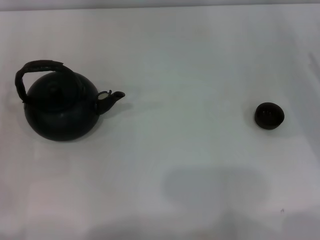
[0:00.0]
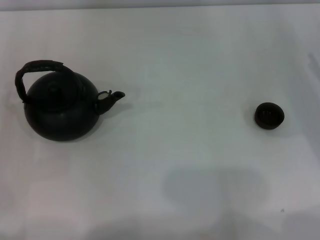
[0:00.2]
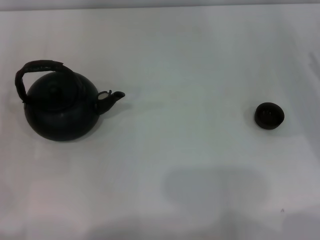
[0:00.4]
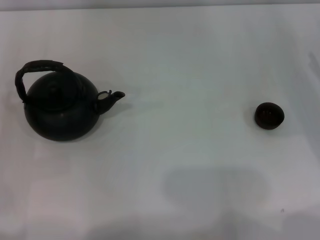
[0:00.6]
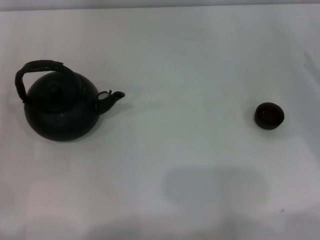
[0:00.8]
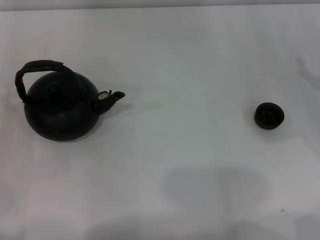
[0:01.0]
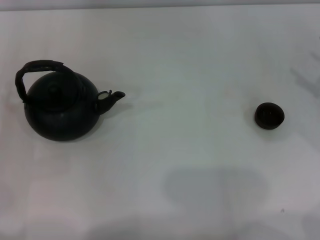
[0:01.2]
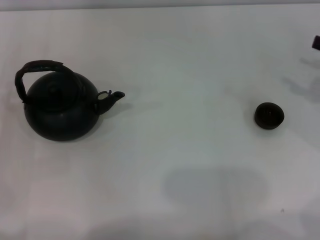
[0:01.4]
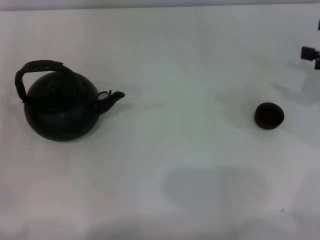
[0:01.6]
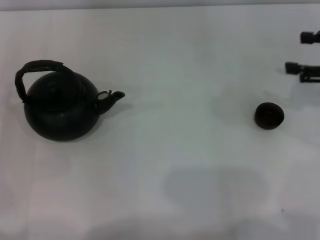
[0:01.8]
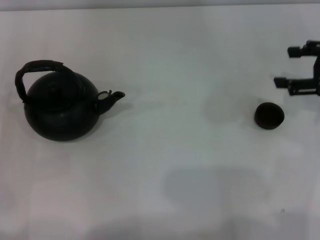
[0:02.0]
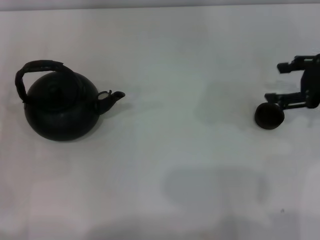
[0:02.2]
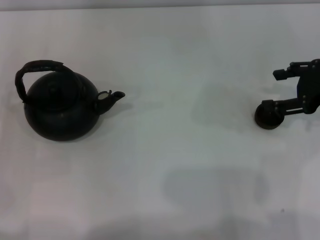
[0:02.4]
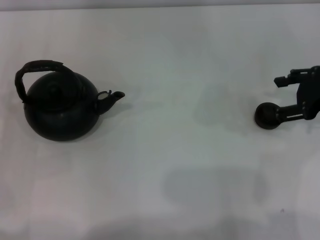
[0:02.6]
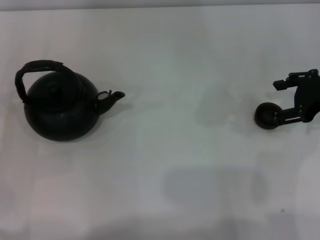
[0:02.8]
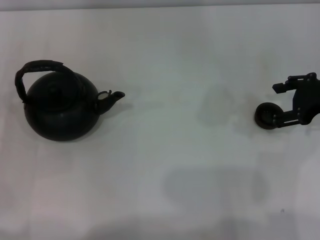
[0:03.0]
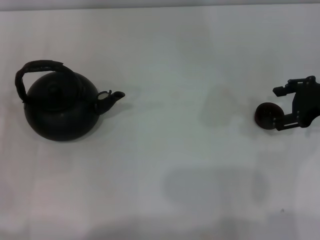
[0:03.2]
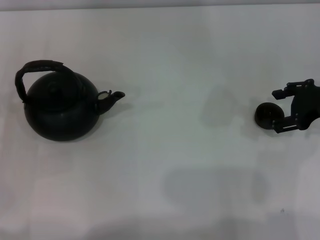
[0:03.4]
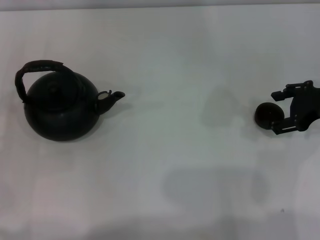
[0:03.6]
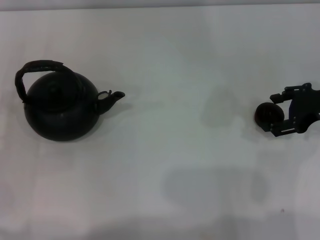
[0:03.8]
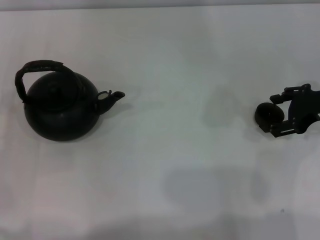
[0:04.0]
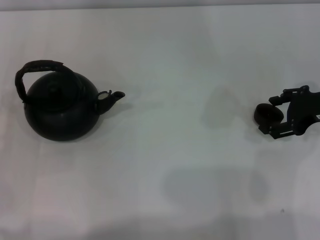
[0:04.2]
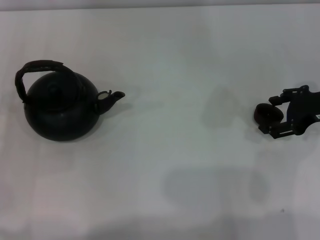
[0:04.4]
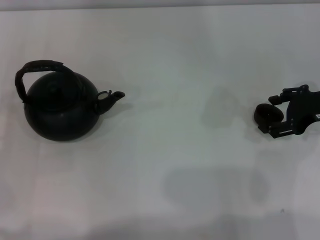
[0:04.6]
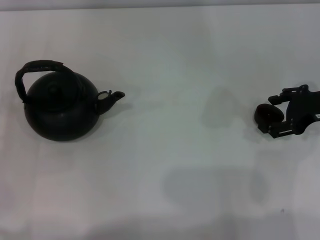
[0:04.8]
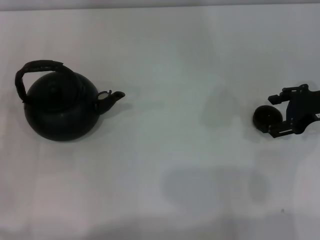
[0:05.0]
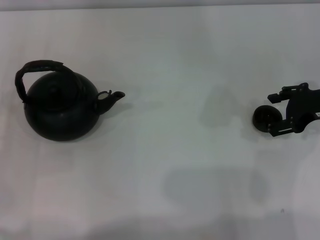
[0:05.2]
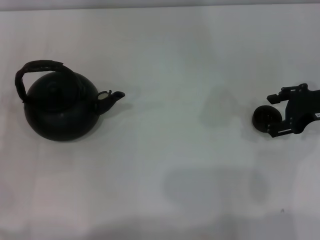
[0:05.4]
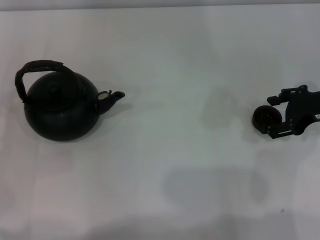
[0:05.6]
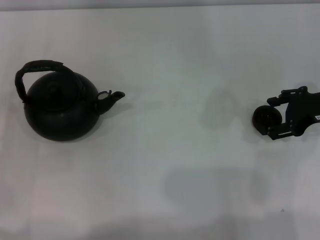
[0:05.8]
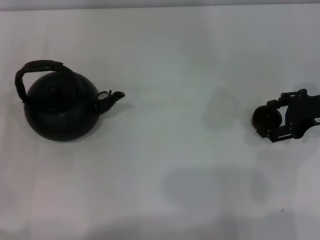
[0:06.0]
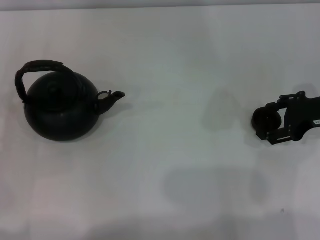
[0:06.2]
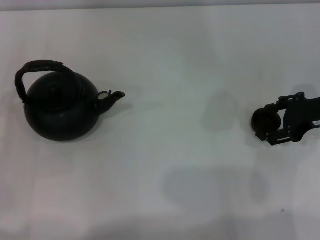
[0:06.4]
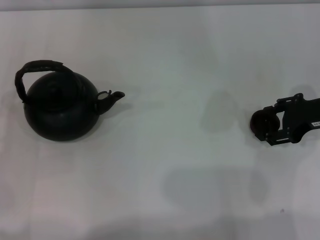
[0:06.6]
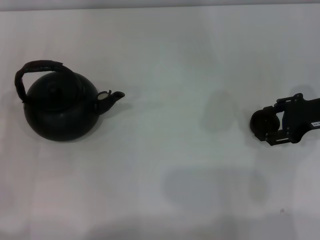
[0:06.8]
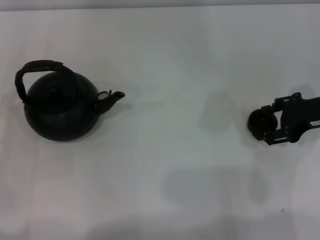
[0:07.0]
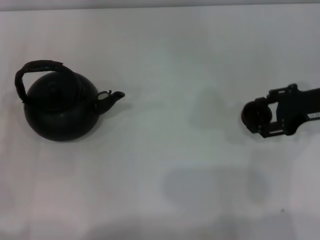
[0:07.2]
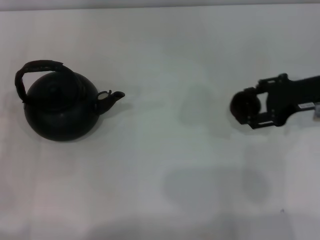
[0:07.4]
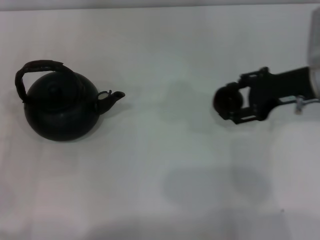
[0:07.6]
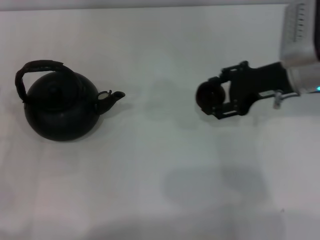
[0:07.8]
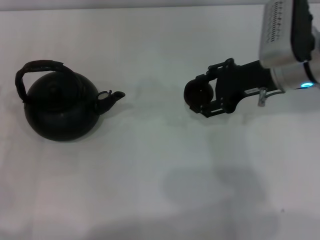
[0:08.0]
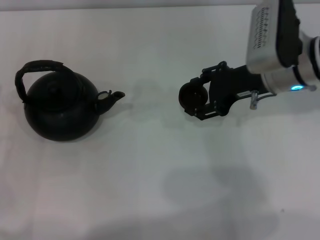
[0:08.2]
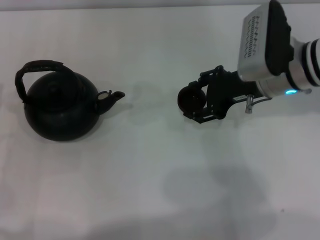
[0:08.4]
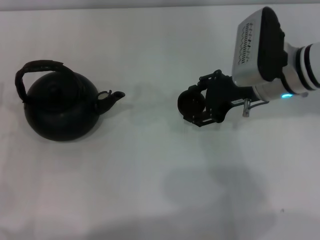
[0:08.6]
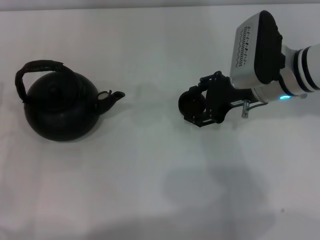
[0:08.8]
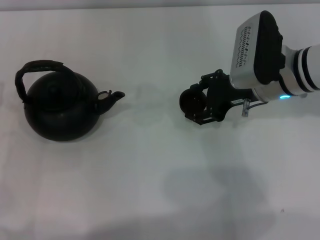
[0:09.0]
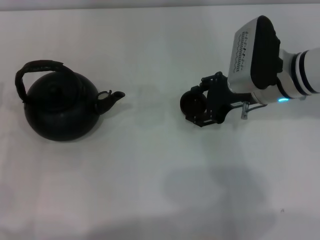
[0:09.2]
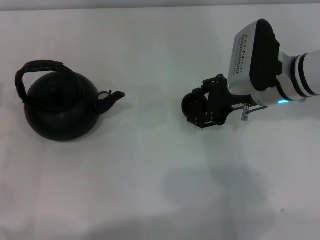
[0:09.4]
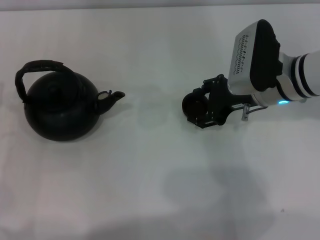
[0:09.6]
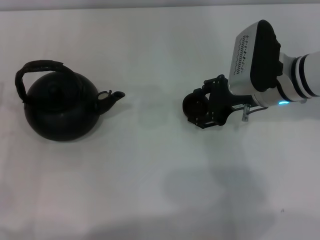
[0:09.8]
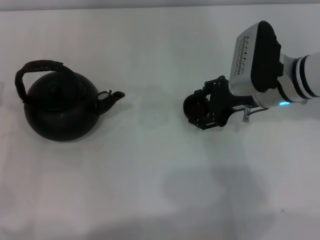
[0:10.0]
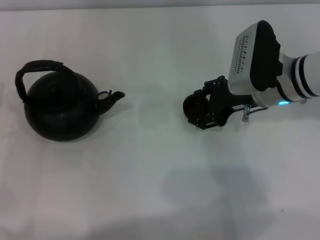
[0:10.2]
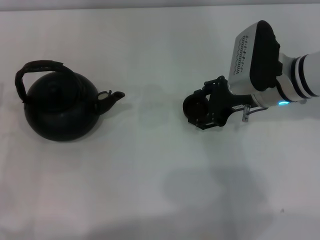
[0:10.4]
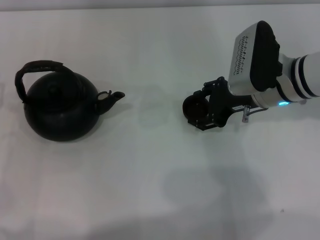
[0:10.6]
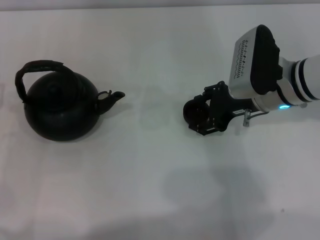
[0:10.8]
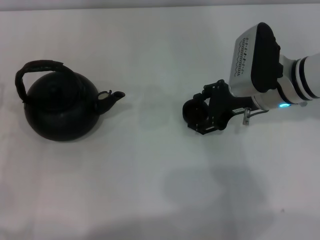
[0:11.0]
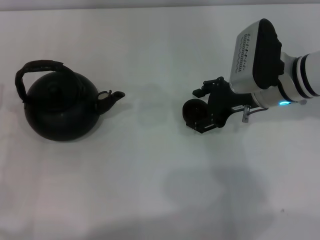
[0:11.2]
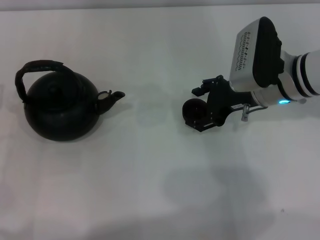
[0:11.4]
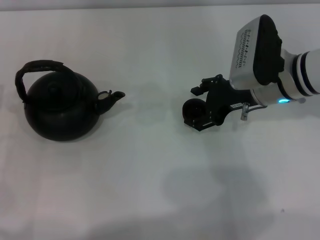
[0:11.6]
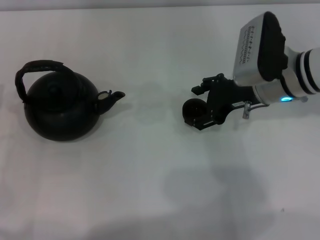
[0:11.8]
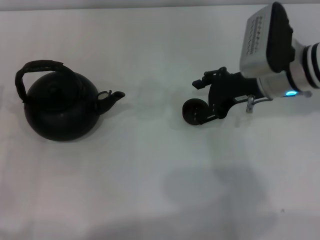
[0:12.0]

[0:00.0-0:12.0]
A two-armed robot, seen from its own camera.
Task of the whole recording: Grasp the handle of the teapot with one hand and pour tea into the teacup.
Step, 0:00.0 to 0:07.2: Pick up the teacup with the right gripper.
0:01.6 to 0:03.0: The right gripper moves to the left, some 5 cm.
0:03.0 to 0:04.4: The grippers make only small movements.
0:04.4 to 0:06.0: Neither gripper changes place.
0:06.0 to 0:07.6: The right gripper moves to the left, about 5 cm, and closes its fingers.
0:07.6 to 0:09.0: The right gripper is displaced to the left by some 5 cm.
0:09.0 to 0:10.4: Both grippers stay about where they are.
0:10.4 to 0:12.0: The right gripper opens up.

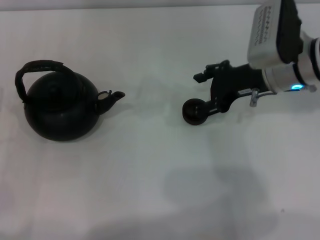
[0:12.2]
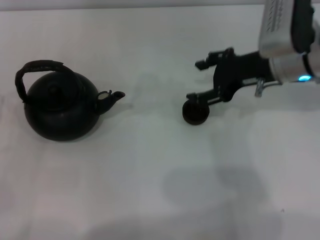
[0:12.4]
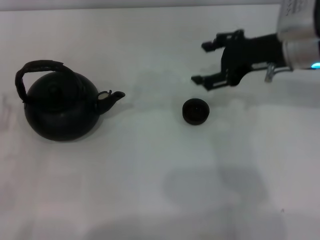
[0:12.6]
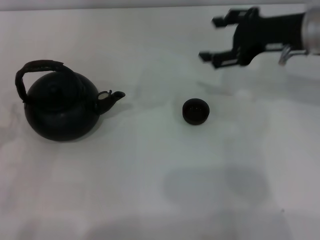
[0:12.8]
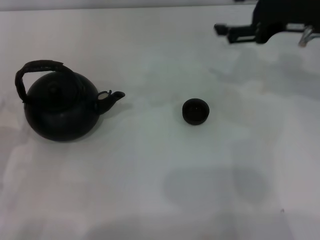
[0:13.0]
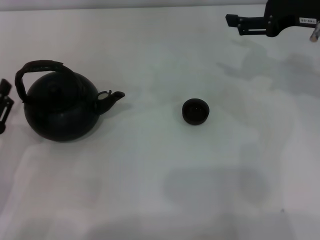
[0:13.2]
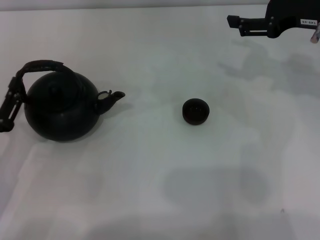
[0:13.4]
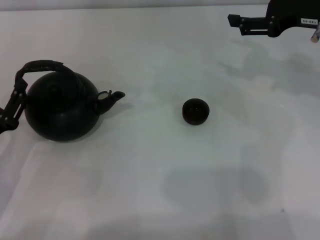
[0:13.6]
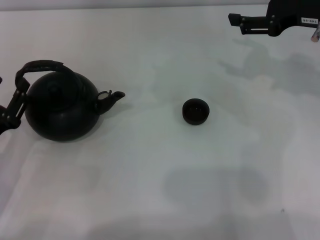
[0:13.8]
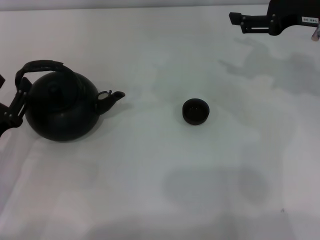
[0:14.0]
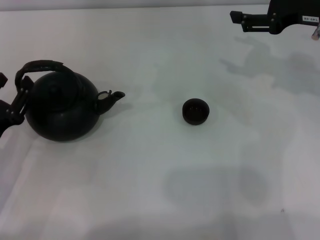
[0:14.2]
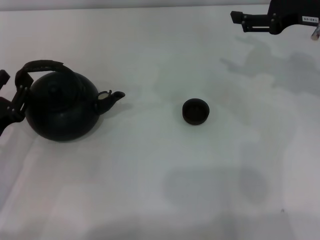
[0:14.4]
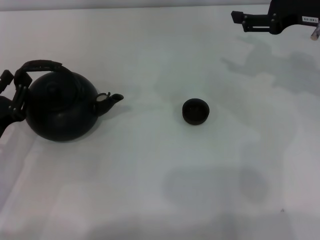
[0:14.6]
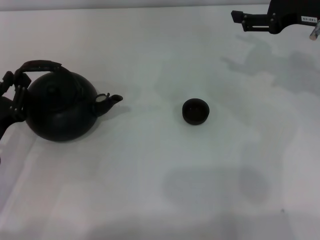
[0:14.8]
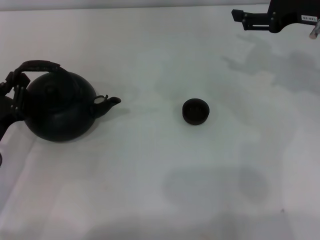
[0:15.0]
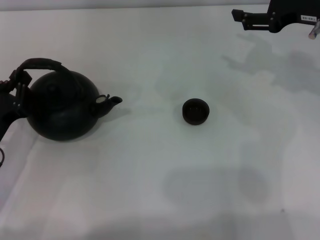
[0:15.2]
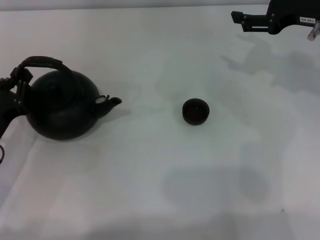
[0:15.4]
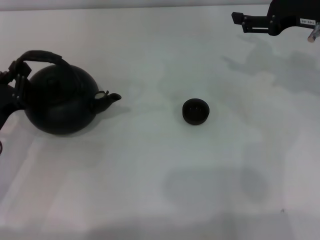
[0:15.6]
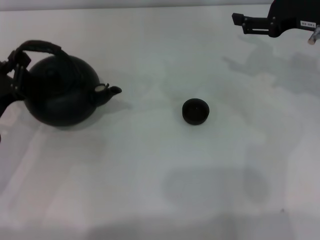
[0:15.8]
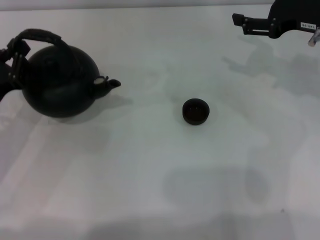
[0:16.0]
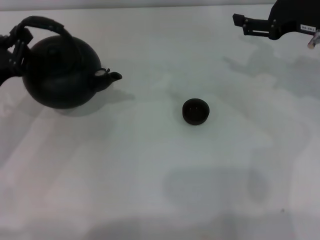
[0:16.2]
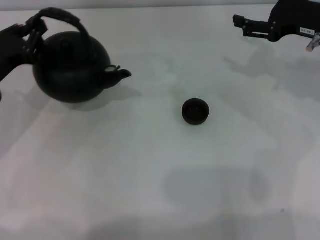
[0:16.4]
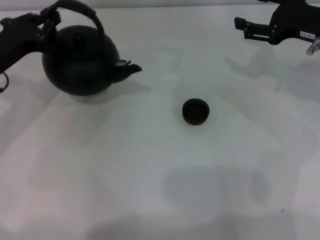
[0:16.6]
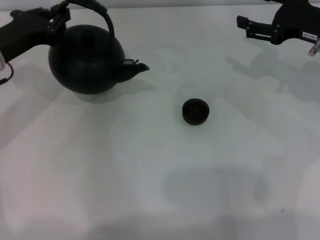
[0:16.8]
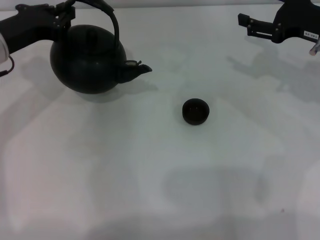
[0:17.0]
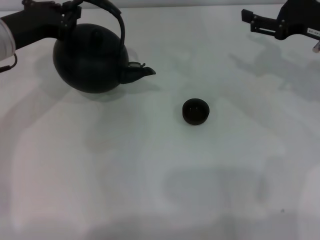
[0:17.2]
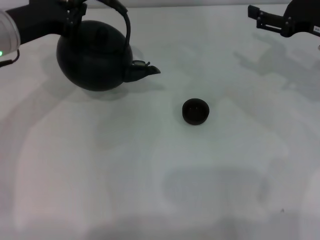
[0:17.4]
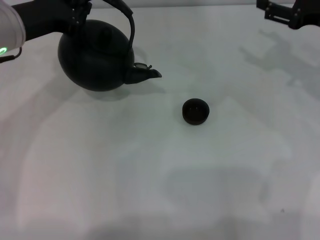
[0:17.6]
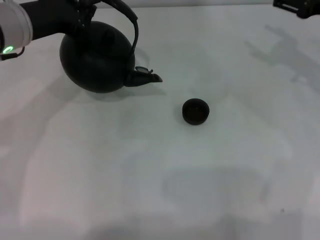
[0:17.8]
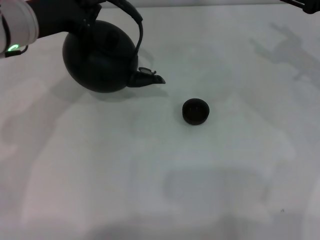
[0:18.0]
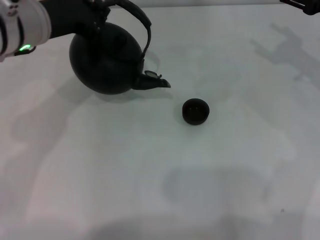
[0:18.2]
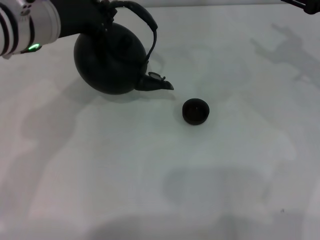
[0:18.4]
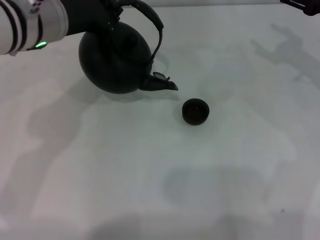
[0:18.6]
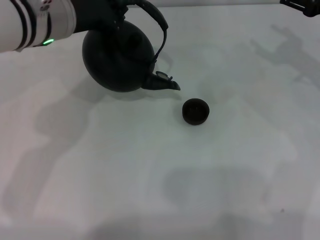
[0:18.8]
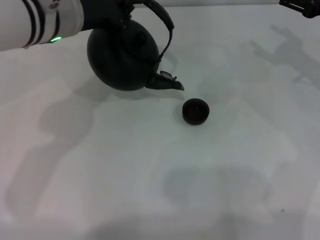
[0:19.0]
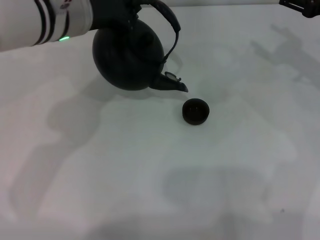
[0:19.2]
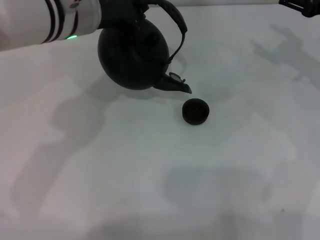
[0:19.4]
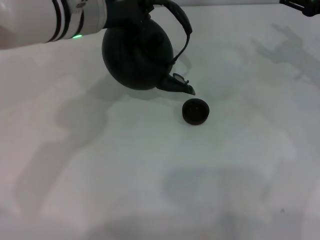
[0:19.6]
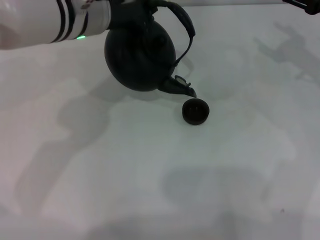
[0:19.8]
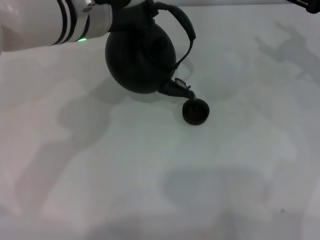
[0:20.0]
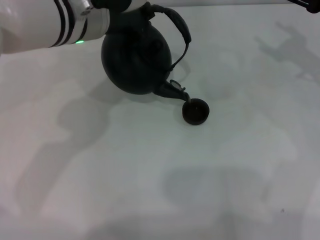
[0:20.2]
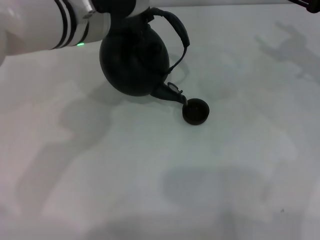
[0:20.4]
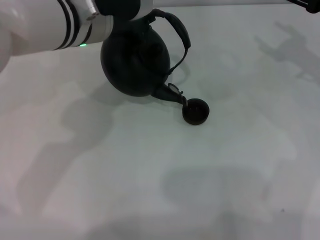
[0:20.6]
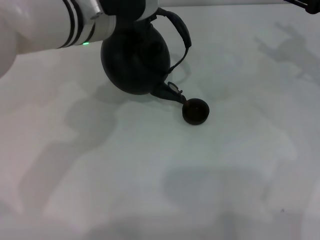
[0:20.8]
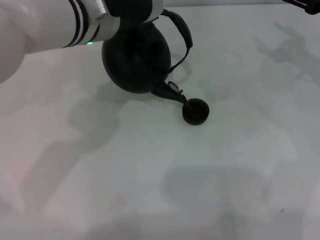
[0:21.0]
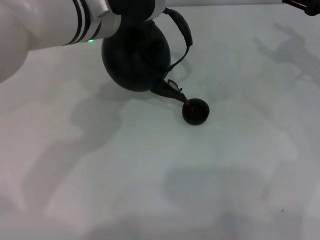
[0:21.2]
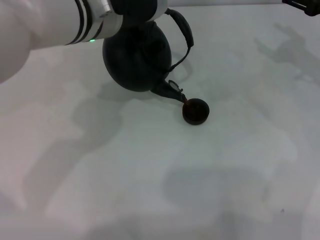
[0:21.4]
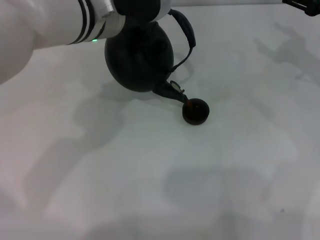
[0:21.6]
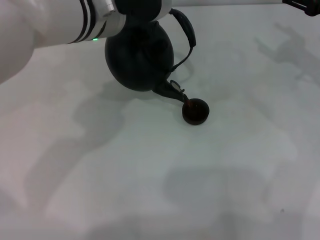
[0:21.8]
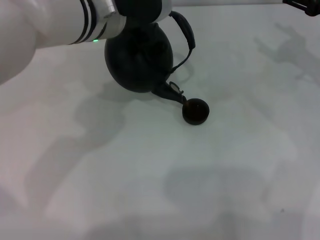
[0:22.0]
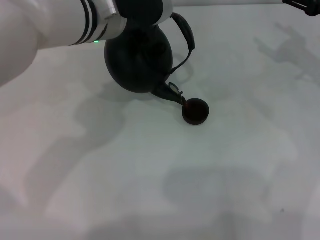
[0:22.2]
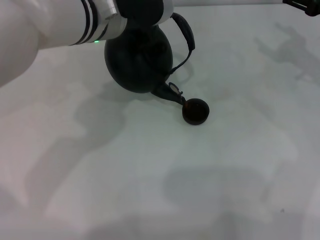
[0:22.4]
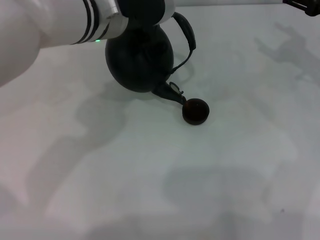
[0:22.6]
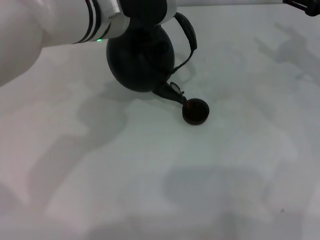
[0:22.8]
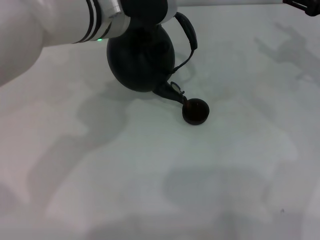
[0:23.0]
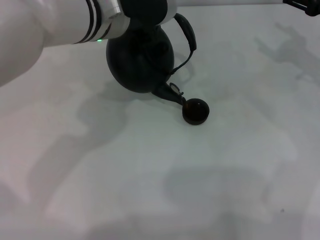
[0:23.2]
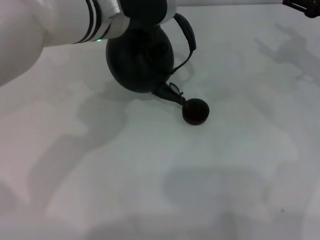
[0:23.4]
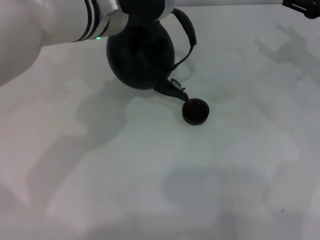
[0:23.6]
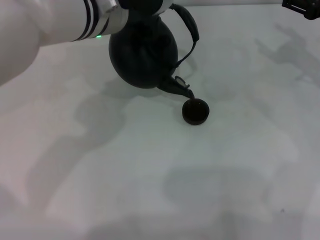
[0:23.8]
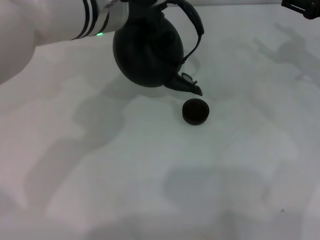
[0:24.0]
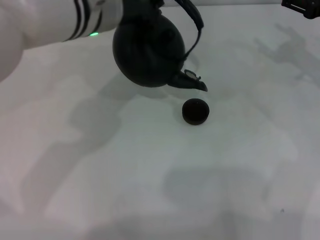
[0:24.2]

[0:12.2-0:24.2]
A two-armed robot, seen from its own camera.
Task of the whole recording: Grasp the handle of the teapot with one hand and pour tea into the teacup.
Step, 0:12.6 to 0:17.8: Pick up the teapot with the left gripper.
Step, 0:18.0 to 0:24.0: Pour tea into the teacup with the left gripper.
0:12.2 to 0:13.8: The right gripper goes roughly 10 cm to the right and upward, while the left gripper shifts by approximately 5 cm.
0:13.8 to 0:15.2: The left gripper closes.
0:15.2 to 0:16.6: The left gripper travels forward and upward by about 15 cm.
0:16.6 to 0:18.2: The left gripper moves to the right and upward, about 10 cm.
0:18.2 to 0:19.8: The left gripper shifts some 5 cm to the right.
0:19.8 to 0:21.2: There are only small adjustments of the grippers.
0:21.2 to 0:22.6: Neither gripper changes place.
0:22.6 to 0:24.2: The grippers move only a little.
